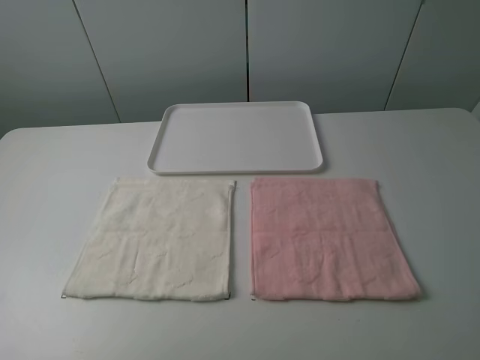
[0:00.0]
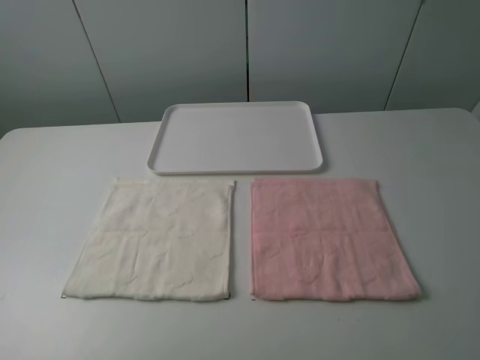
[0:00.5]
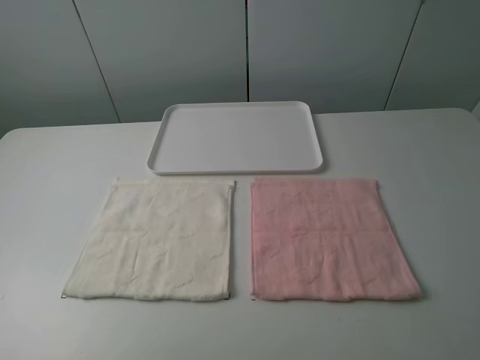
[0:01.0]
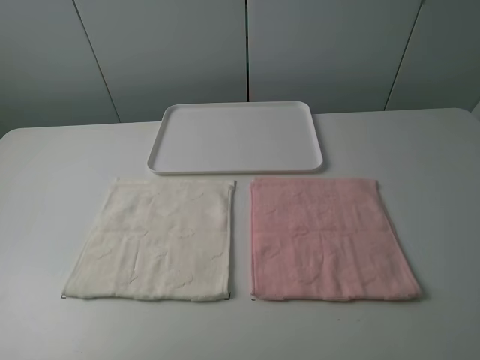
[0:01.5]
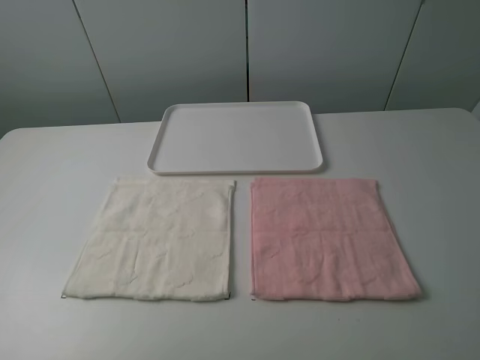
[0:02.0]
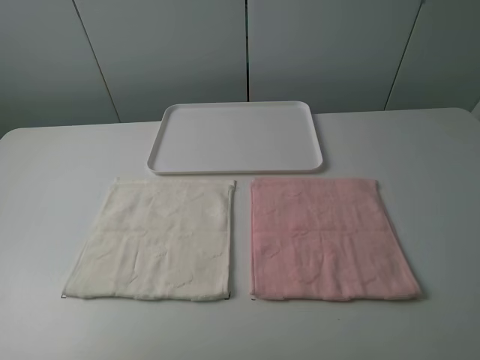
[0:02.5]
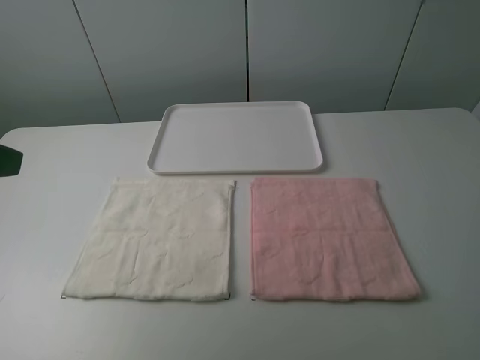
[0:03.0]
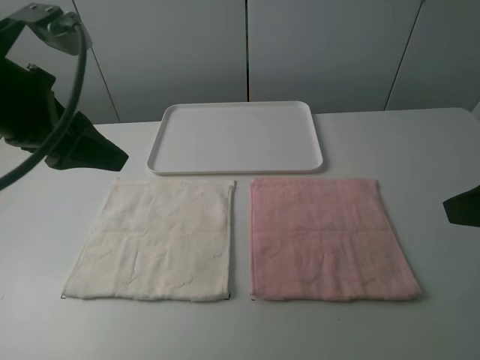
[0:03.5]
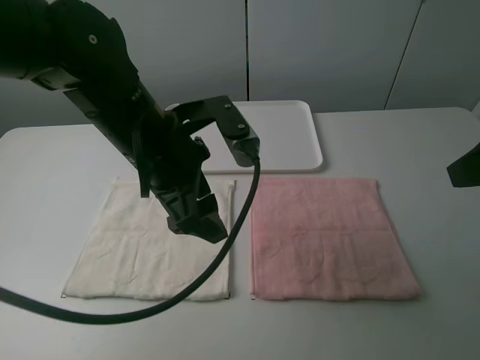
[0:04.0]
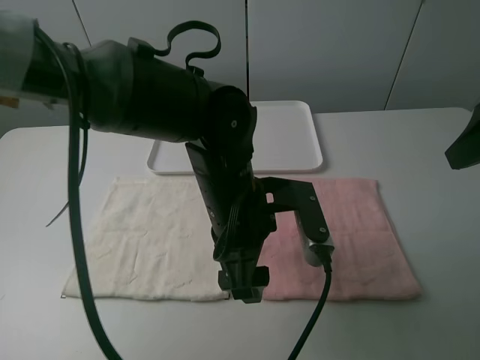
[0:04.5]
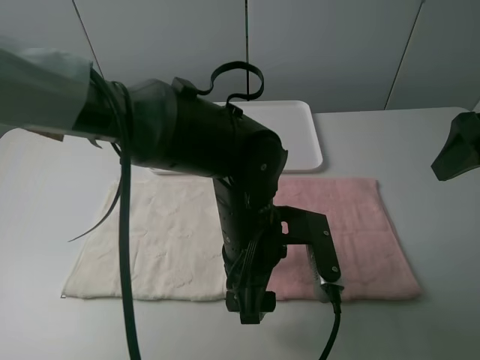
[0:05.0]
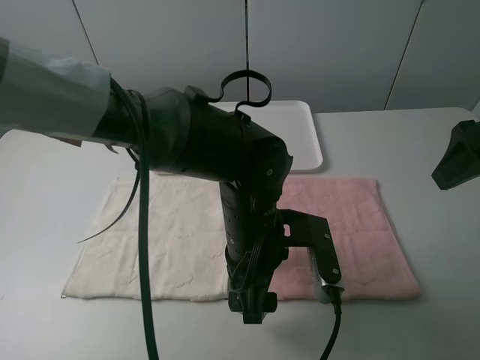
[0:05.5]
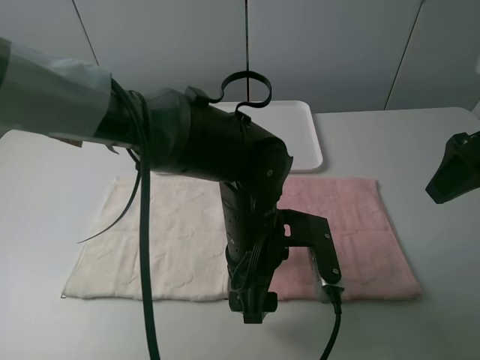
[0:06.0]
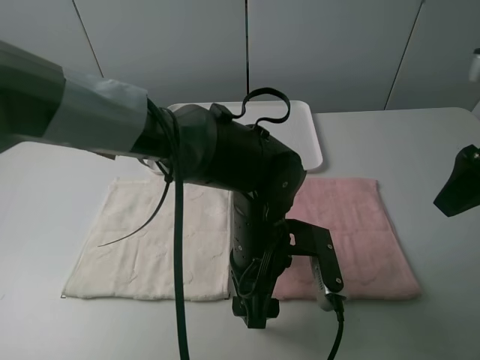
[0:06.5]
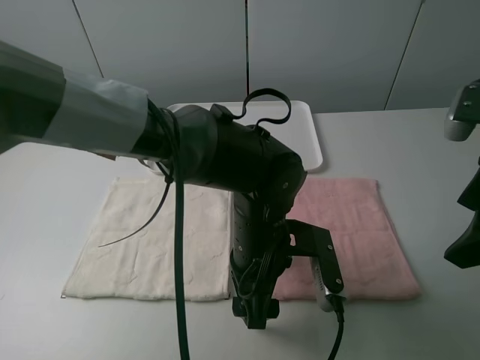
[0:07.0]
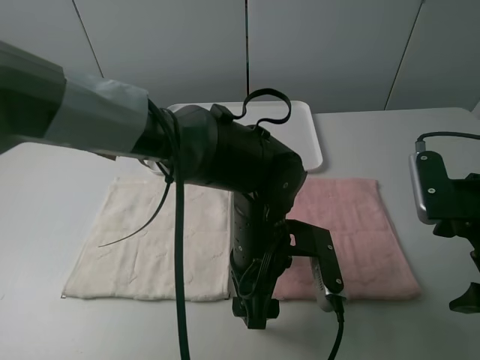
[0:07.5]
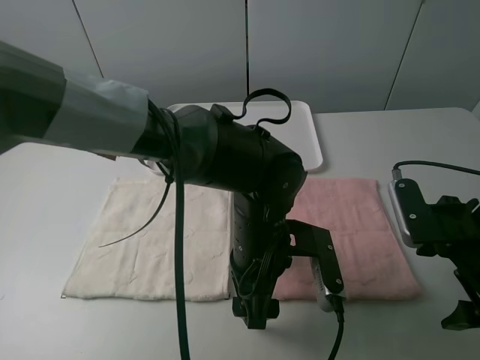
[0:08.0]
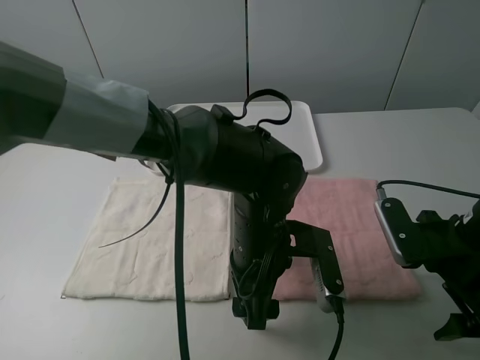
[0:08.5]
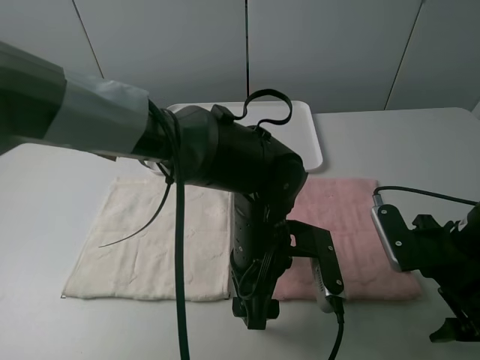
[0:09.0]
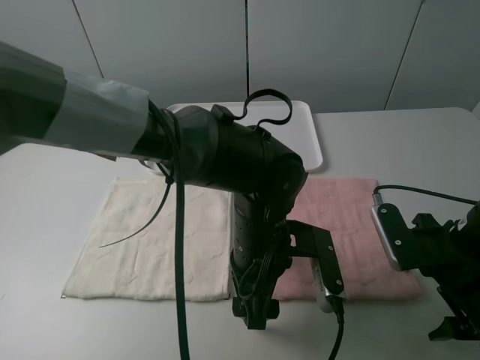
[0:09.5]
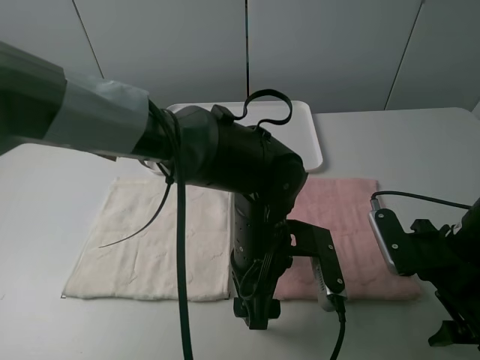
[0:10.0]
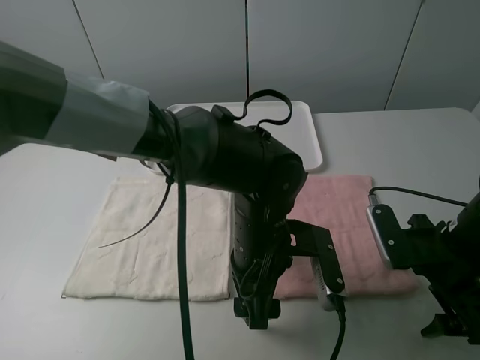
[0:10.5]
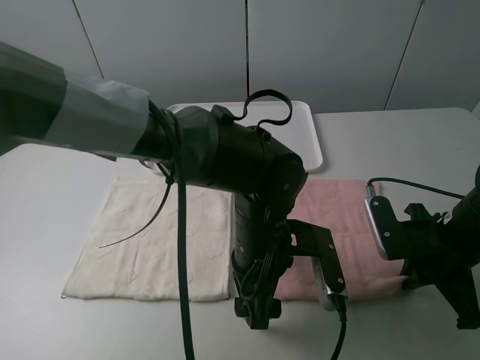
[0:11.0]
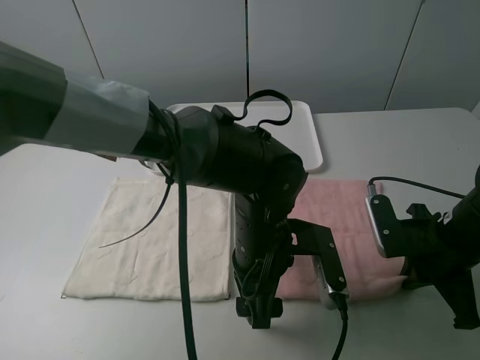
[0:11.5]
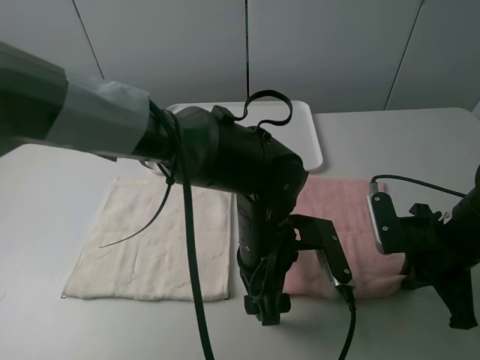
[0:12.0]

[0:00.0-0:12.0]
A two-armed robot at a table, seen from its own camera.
Task of the whole recording: fold one of the towels by two grippers and place it on the tray,then fold another towel by two grippers and place it on the folded towel.
0:00.0 to 0:02.0: Neither gripper changes place.
0:02.0 to 0:04.0: The right gripper moves forward, approximately 15 cm, while the left gripper heads to the right and forward, covering some 35 cm.
0:04.0 to 0:06.0: The right gripper goes approximately 5 cm forward. Meanwhile the left gripper is displaced downward and to the right by about 15 cm.
0:06.0 to 0:08.0: The right gripper goes roughly 15 cm downward.
0:08.0 to 0:10.0: The grippers make only small movements.
0:10.0 to 0:12.0: The right gripper closes up.

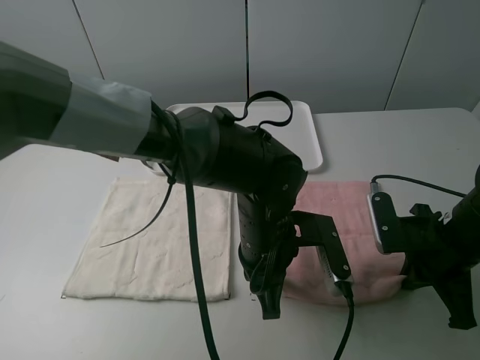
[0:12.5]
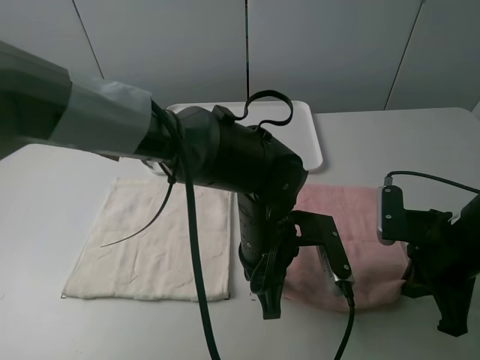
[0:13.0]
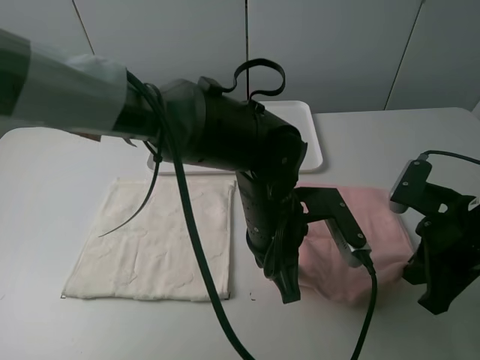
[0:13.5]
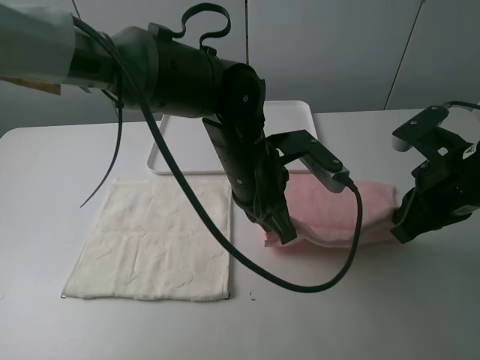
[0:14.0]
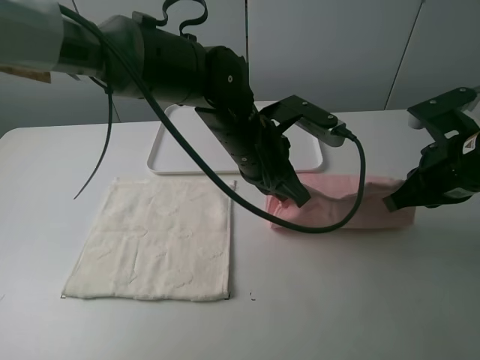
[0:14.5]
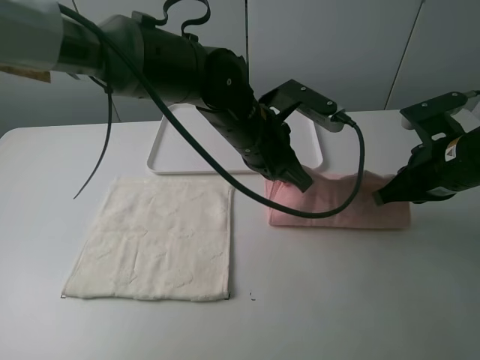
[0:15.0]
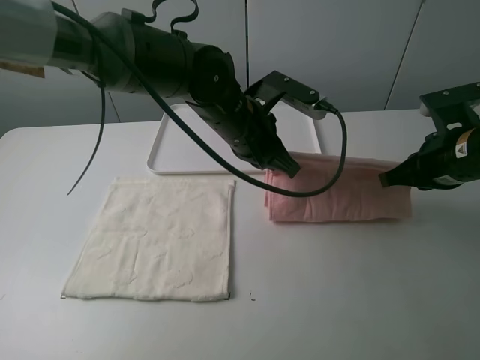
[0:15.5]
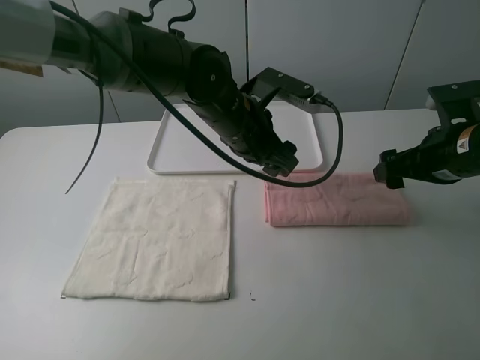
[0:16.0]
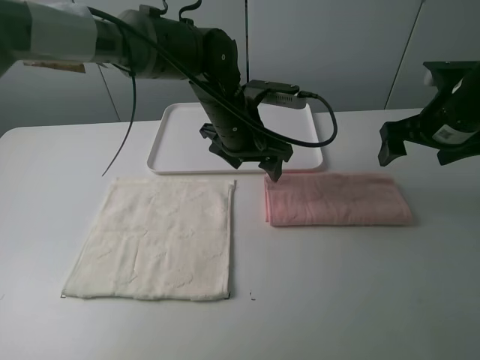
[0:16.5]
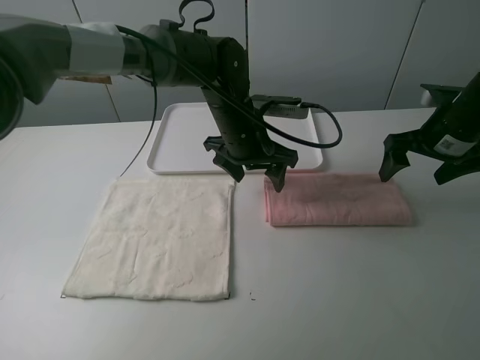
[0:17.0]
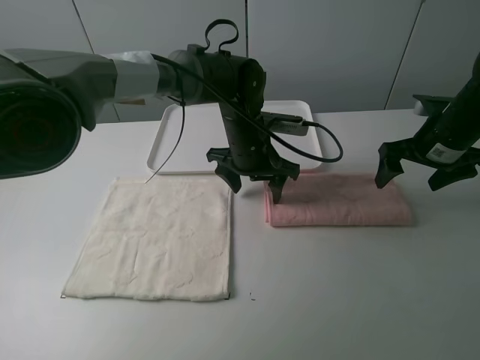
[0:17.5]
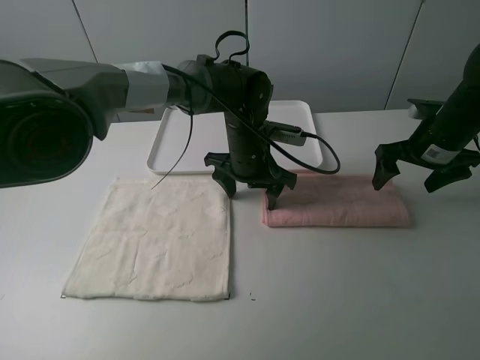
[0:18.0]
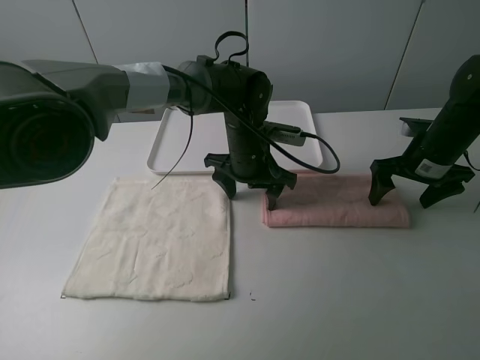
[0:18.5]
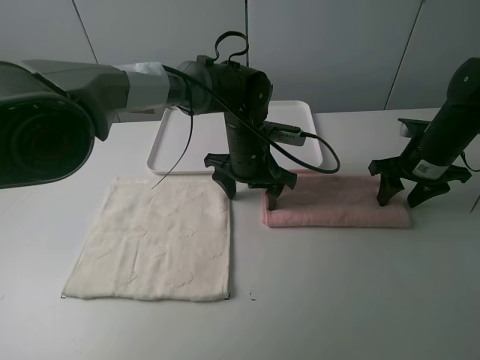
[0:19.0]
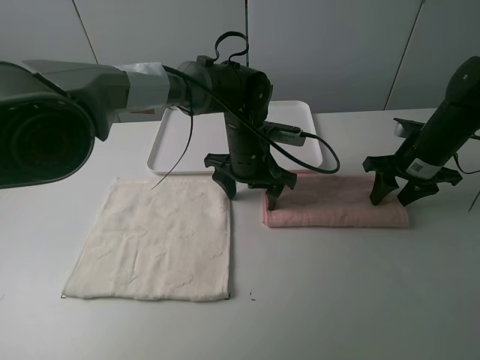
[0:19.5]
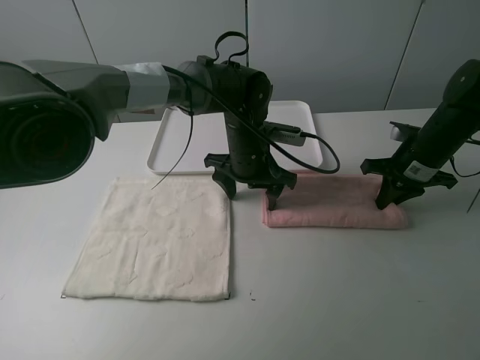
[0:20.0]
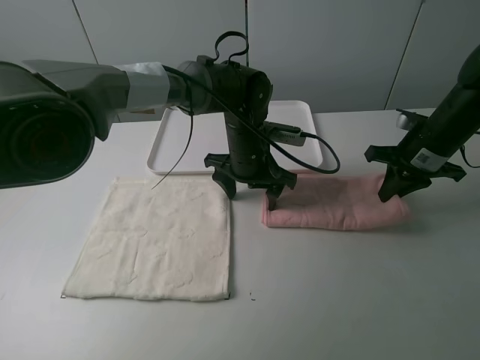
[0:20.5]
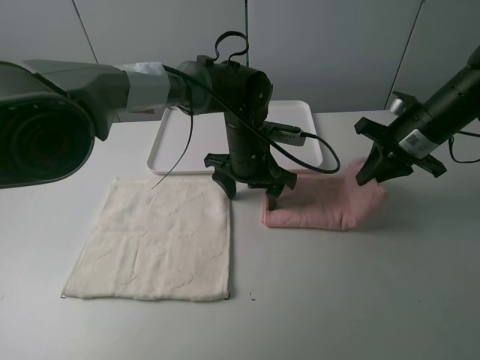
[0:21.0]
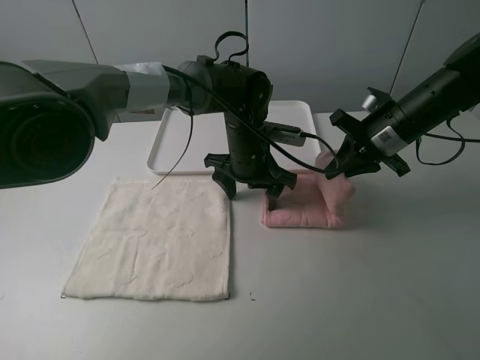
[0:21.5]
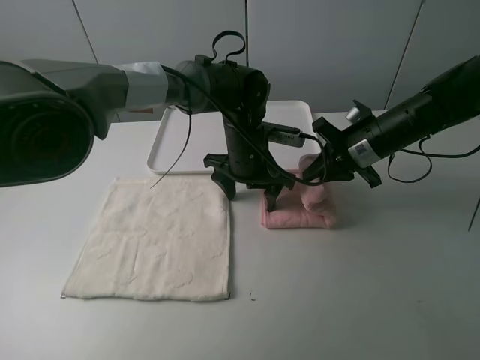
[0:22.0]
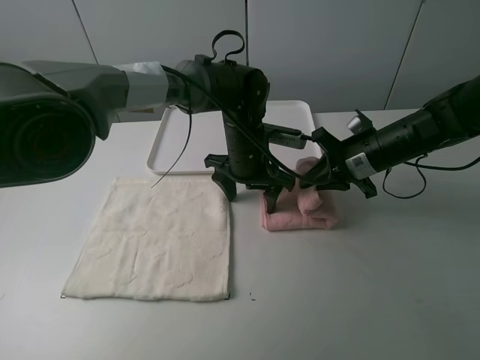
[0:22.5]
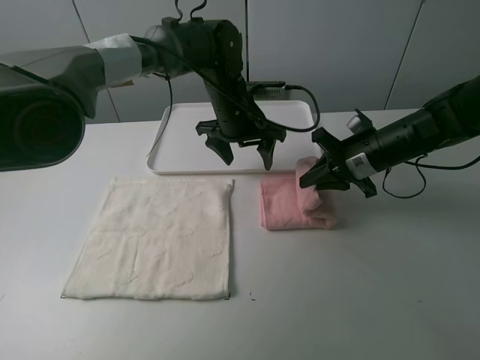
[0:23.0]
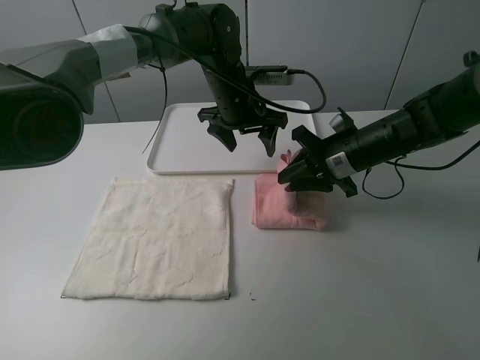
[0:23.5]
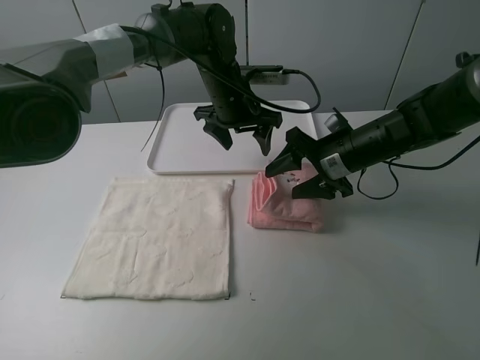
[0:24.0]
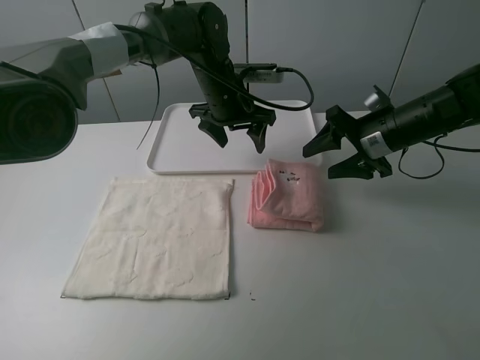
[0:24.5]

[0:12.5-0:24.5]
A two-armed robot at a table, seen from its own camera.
Task of the whole recording: fold one of the towels by two grippers and place it on the tray,then fold another towel by two grippers and place it on the folded towel.
Step, 0:12.5 to 0:16.0: Fold the pink towel upwards with the left gripper.
Step, 0:16.5 to 0:17.5: Press the pink towel with the left gripper.
Step, 0:18.0 to 0:20.0: Grasp the pink towel with the right gripper.
Step, 0:20.5 to 0:24.0: Fold the pink towel from right to left with right gripper.
0:12.5 to 0:14.5: The left gripper is displaced forward and upward by approximately 10 cm. Meanwhile the right gripper is displaced upward by about 10 cm.
0:14.5 to 0:16.5: The two grippers go roughly 10 cm forward. The right gripper opens; the left gripper opens its fingers.
0:16.5 to 0:18.5: Both grippers move downward, about 5 cm.
0:18.5 to 0:20.5: The right gripper closes up.
0:20.5 to 0:22.5: The right gripper goes about 10 cm to the left.
0:22.5 to 0:24.5: The left gripper moves forward and upward, approximately 10 cm; the right gripper opens up.

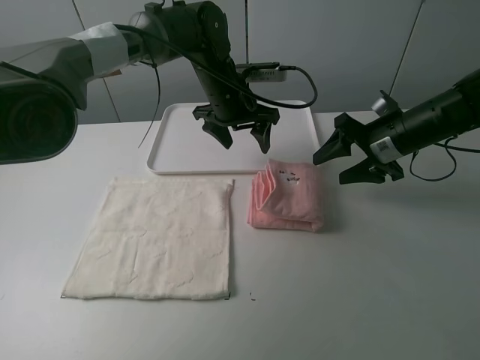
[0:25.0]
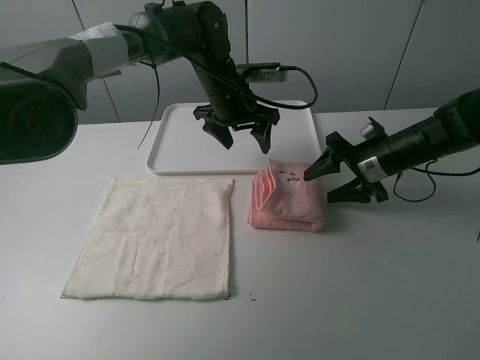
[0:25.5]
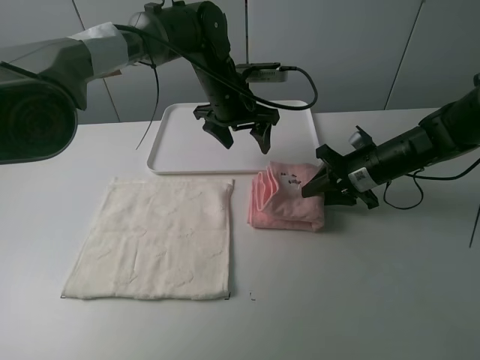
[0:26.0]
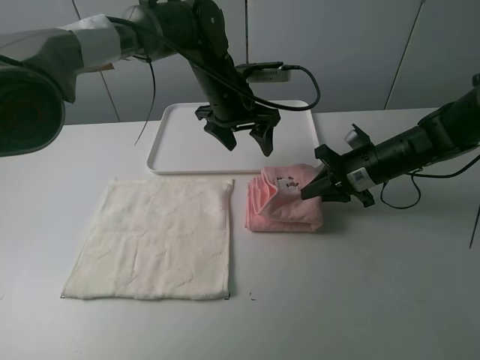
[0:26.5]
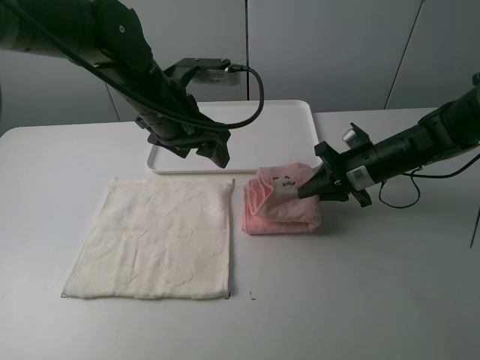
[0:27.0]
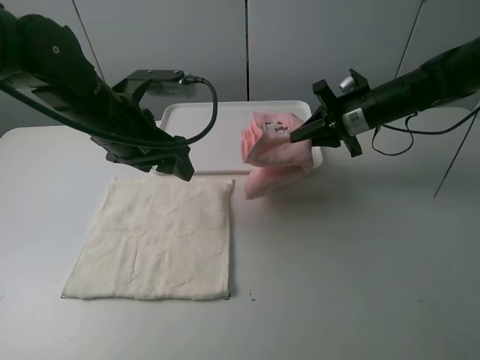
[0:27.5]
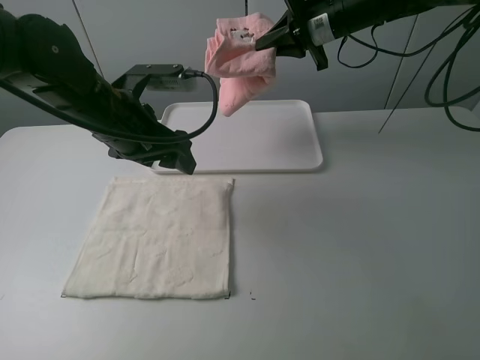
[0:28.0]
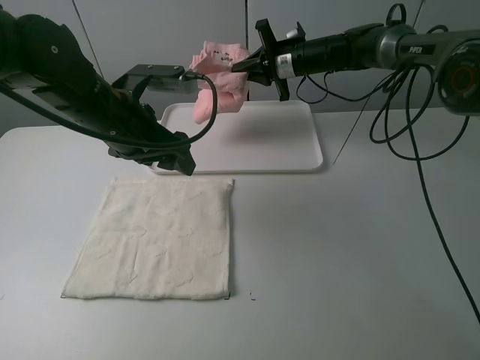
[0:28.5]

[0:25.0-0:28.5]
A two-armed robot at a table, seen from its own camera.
Task of the whole recording: fold one of the towels by two grippers and place it on the tray,then fold another towel by two grippers and place it on the folded towel.
Step, 0:25.0 to 0:26.0: Grasp the pink towel with the right gripper.
0:25.0 to 0:27.0: The left gripper shifts roughly 15 cm backward and to the left. Meanwhile the right gripper shifts by some 5 cm, and closes up.
0:27.0 to 0:28.5: The right gripper travels forward and to the left by some 20 cm.
